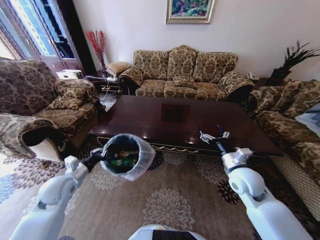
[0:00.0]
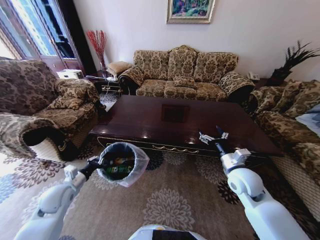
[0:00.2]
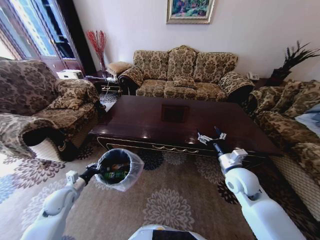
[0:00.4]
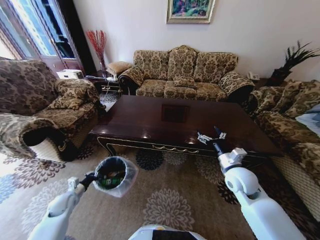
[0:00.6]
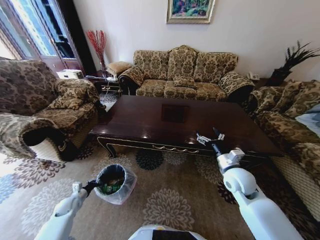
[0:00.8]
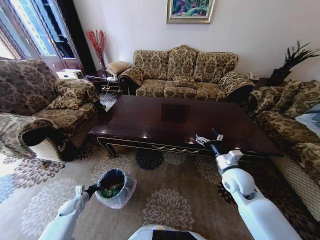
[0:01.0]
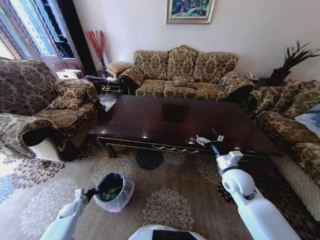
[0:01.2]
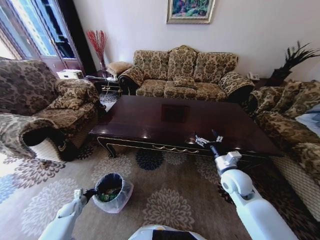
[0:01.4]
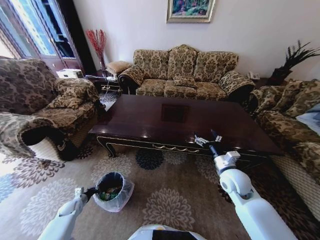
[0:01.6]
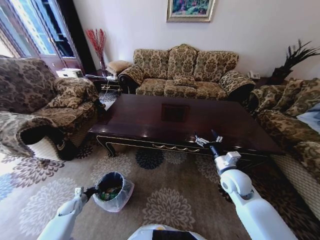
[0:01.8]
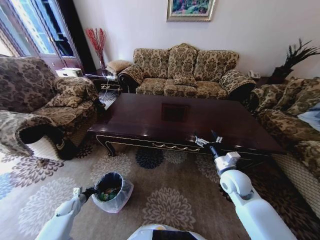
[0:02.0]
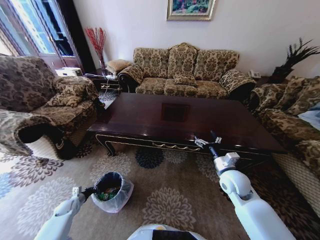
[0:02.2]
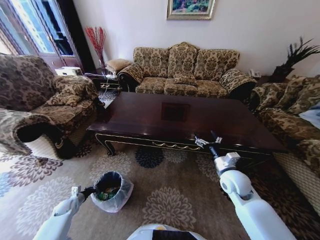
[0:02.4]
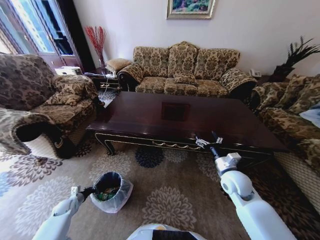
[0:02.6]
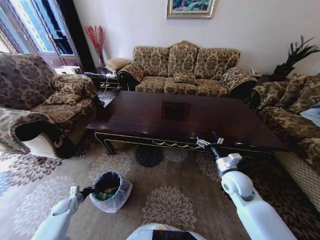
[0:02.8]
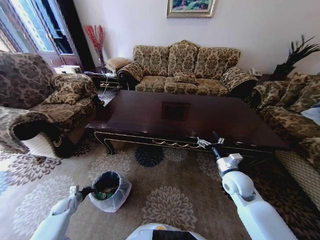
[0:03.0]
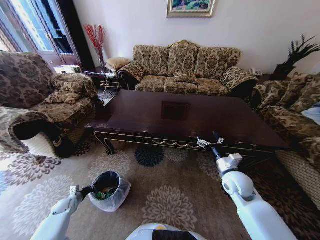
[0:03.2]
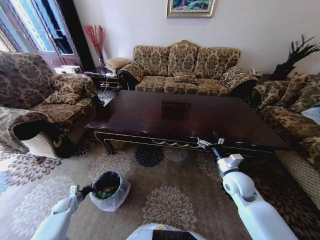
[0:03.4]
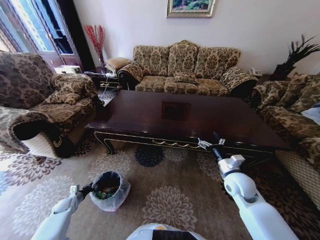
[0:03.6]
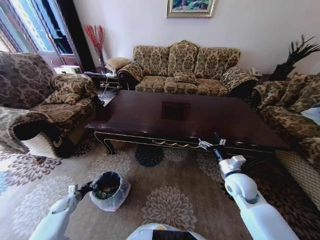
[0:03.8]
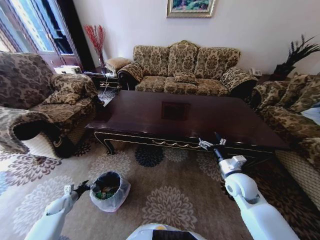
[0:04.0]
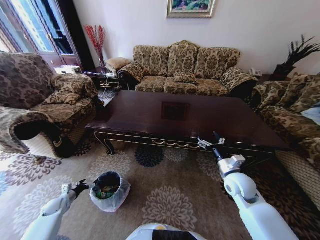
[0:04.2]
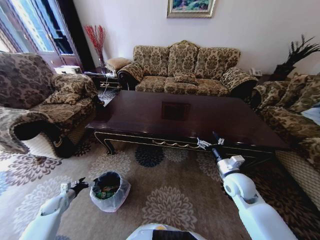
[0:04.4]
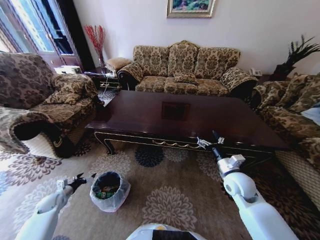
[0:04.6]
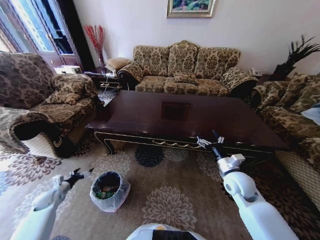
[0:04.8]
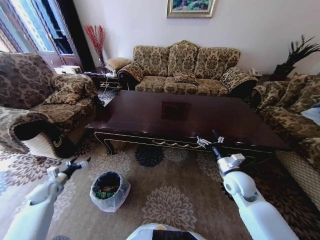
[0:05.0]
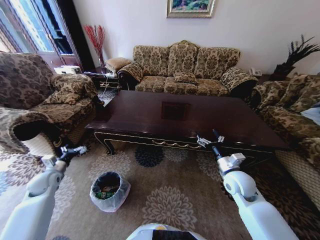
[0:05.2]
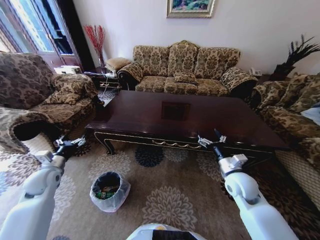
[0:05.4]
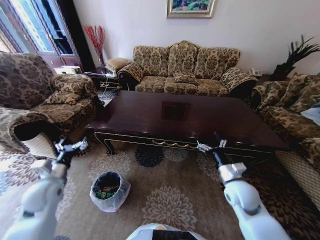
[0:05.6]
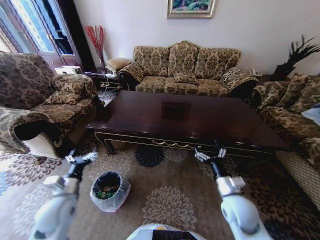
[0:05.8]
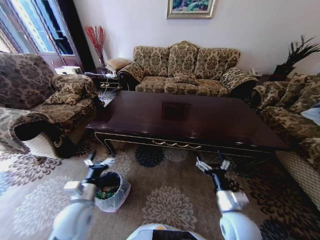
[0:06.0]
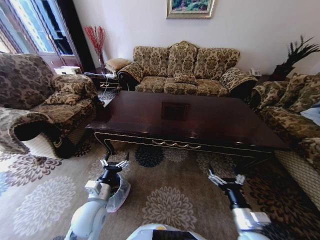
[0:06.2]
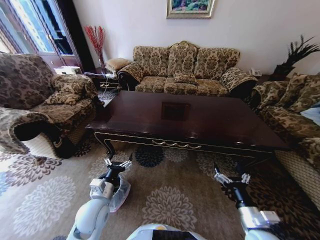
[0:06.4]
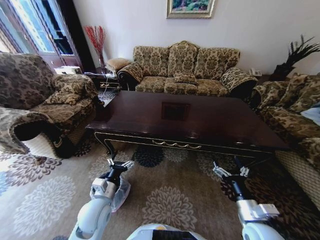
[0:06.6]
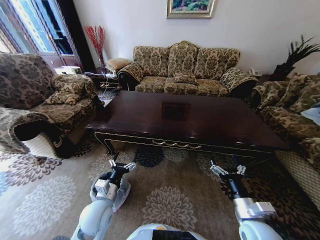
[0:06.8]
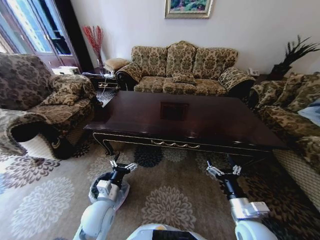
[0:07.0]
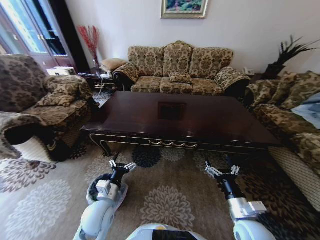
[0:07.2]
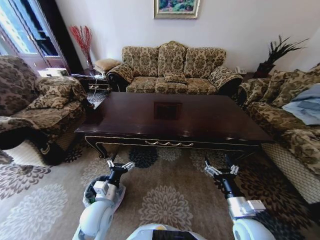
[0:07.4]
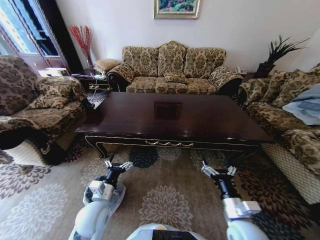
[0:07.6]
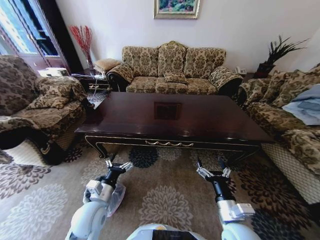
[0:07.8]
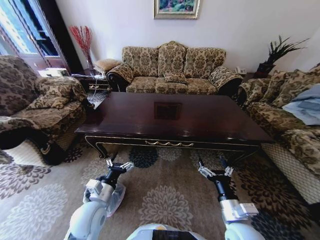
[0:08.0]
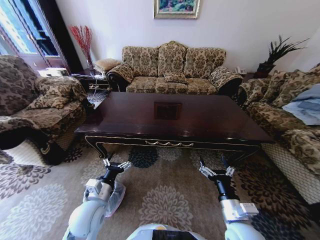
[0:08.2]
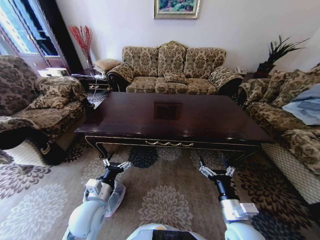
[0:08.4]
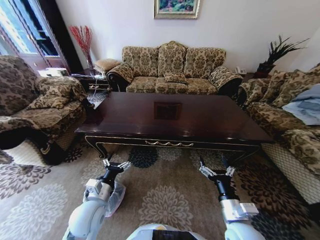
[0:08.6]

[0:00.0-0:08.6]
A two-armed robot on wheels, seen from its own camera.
Task of the whole recording: Move to the front of the table and place the trash on the table into the trash bin.
0:00.0 to 0:01.4: The left gripper shifts roughly 35 cm downward and to the left.
0:02.8 to 0:04.4: The left gripper moves upward, approximately 5 cm, and opens.
0:04.4 to 0:05.8: The left gripper is displaced to the right and upward by about 30 cm, while the right gripper is displaced backward by some 10 cm.
0:05.8 to 0:07.2: The right gripper moves backward, about 5 cm, while the left gripper is displaced to the right by approximately 10 cm.
